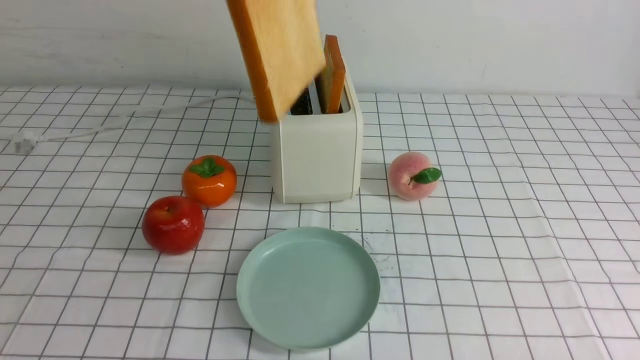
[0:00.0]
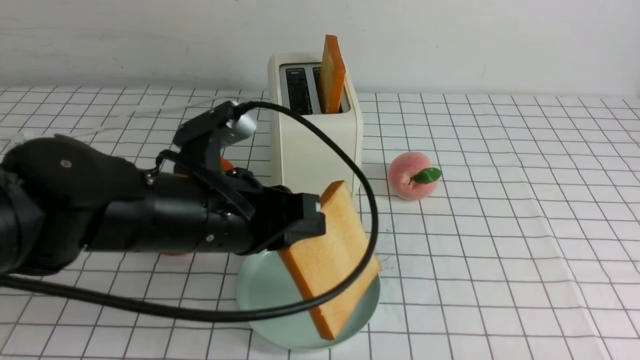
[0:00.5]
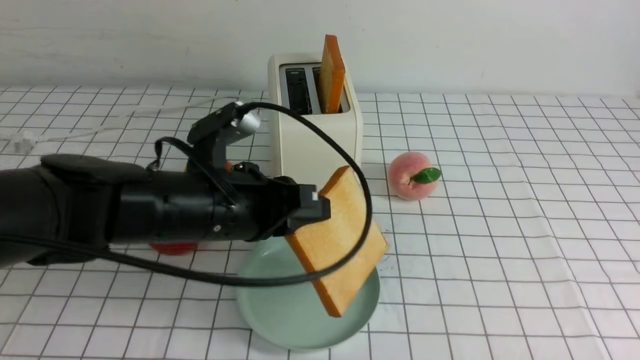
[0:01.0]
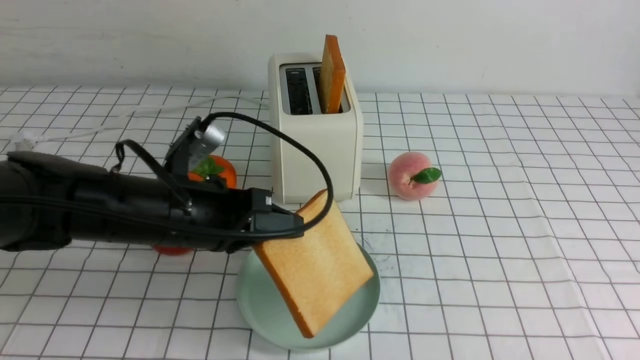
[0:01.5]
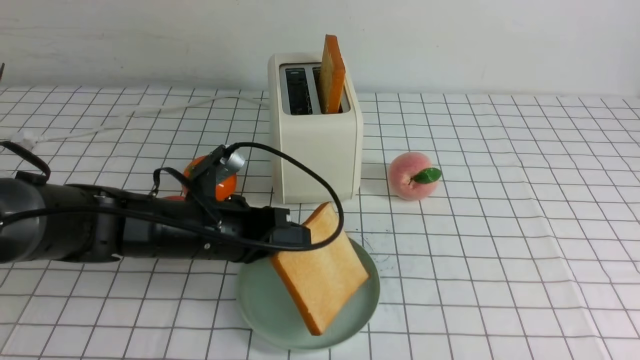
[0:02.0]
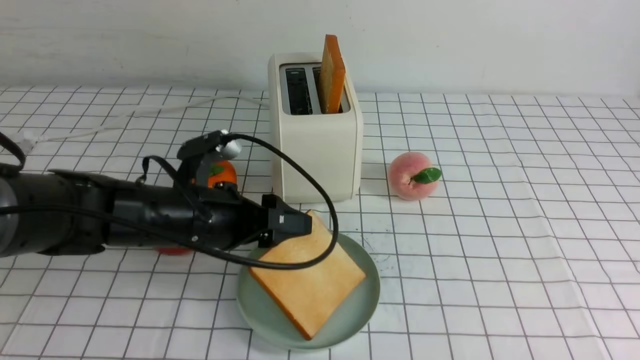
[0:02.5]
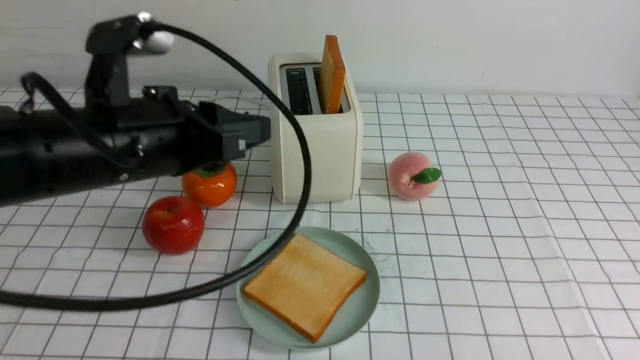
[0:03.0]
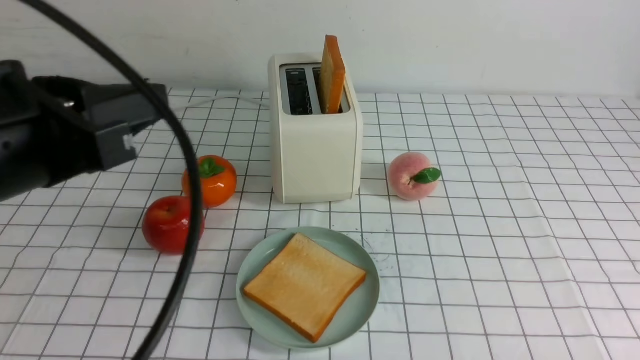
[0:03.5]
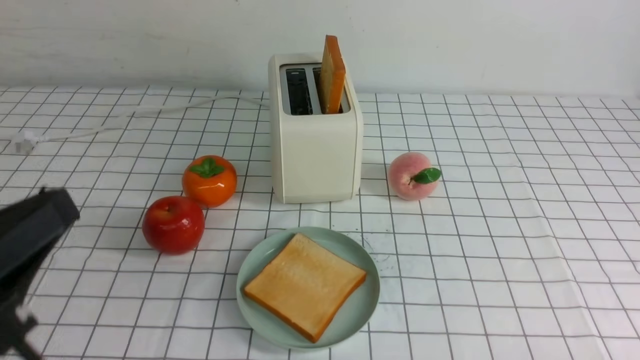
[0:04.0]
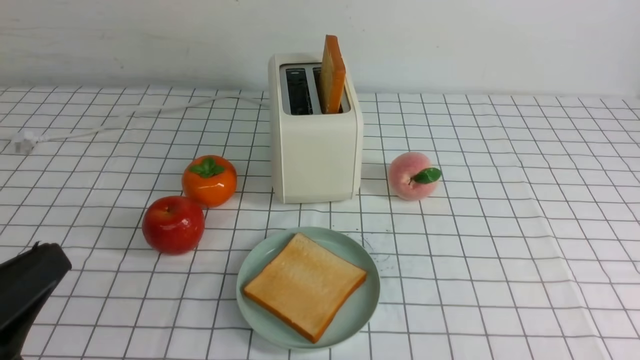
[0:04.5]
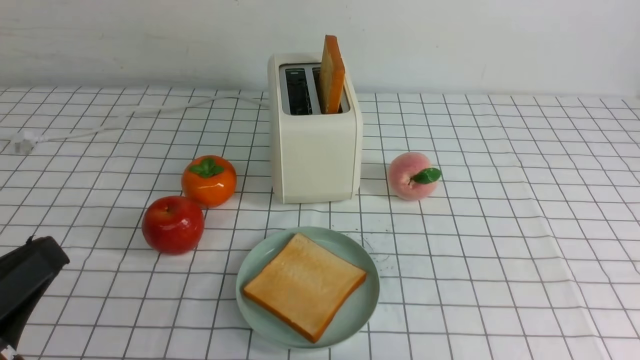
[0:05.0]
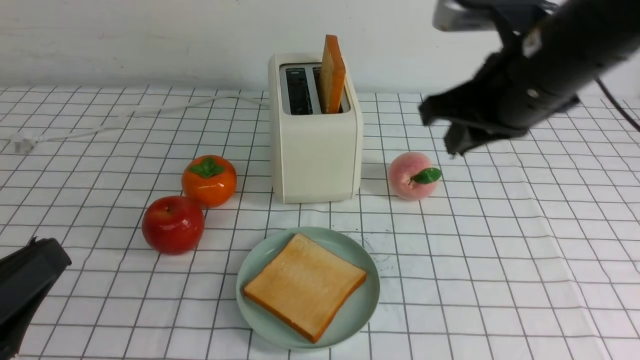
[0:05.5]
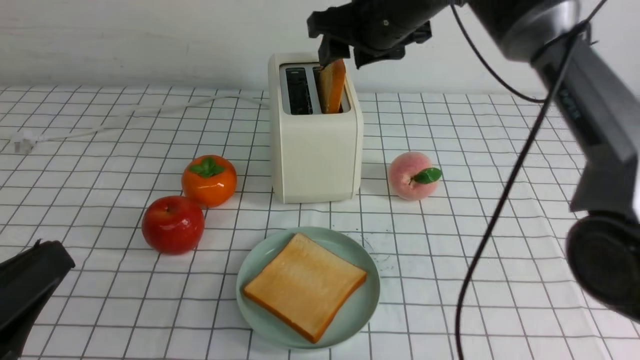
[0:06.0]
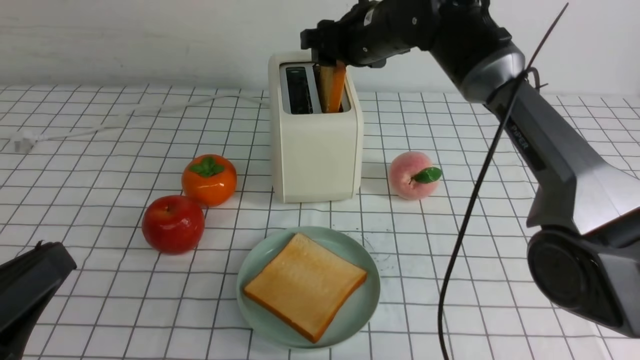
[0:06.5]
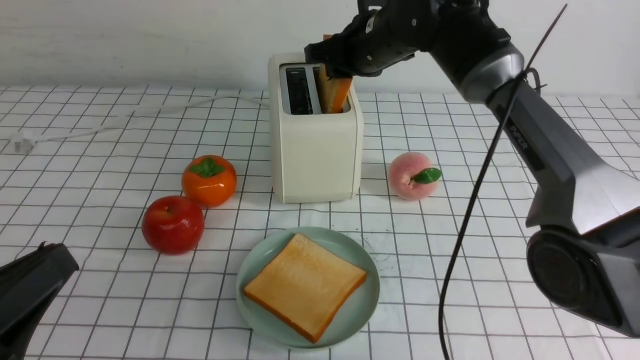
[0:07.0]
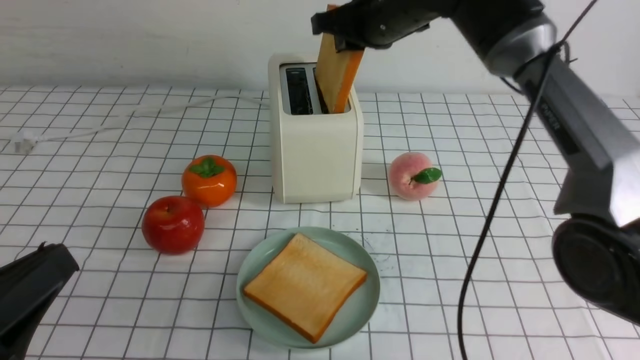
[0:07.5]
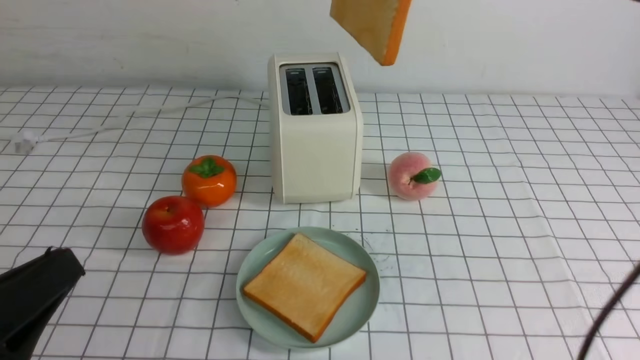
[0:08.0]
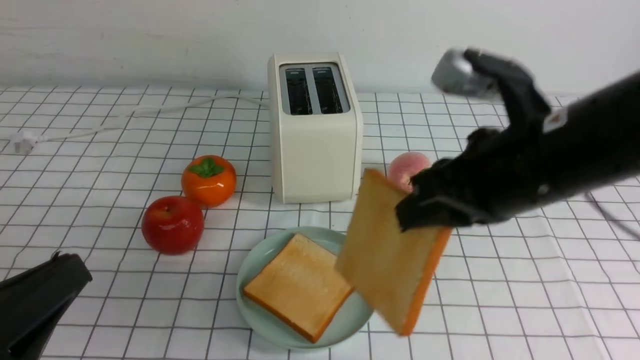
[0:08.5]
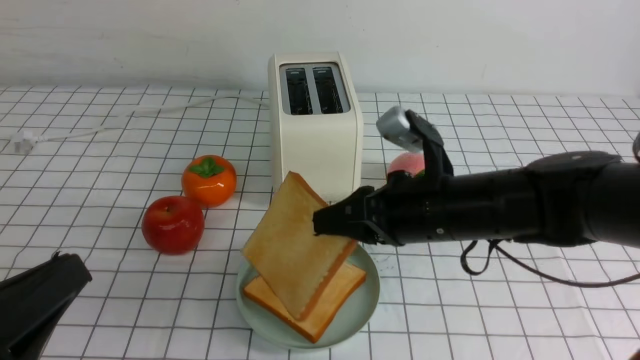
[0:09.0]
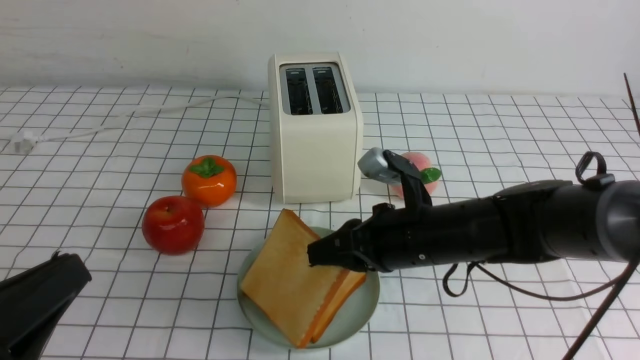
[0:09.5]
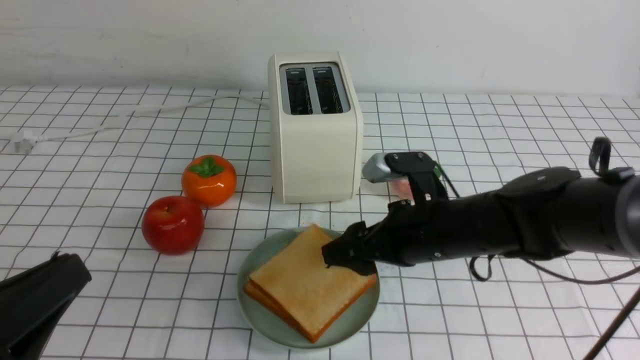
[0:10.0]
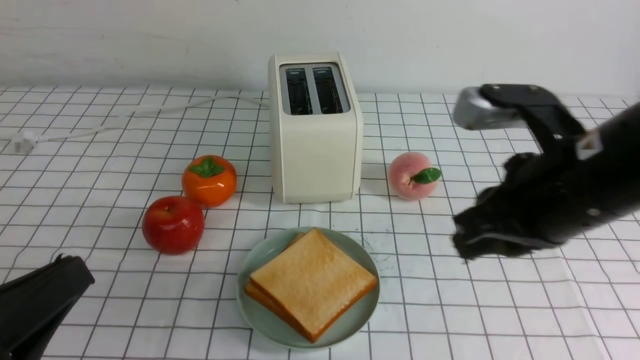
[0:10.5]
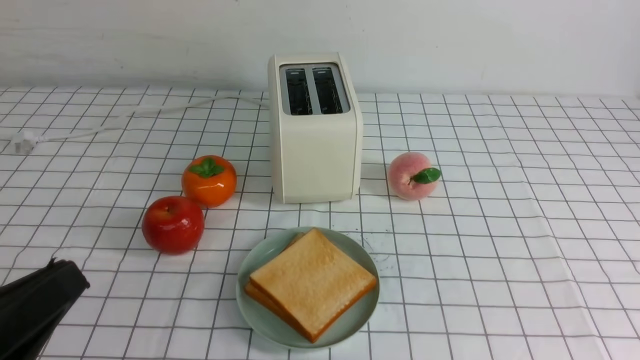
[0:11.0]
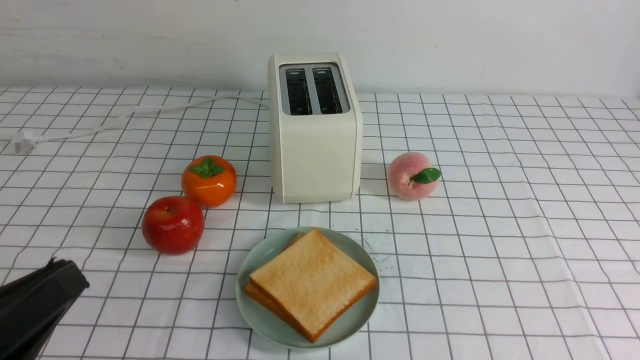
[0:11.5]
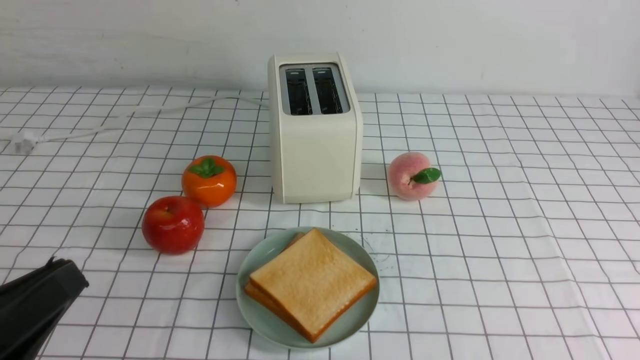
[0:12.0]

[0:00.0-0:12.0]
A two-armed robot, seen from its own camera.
Task of the whole recording: take toasted bread from bread machine on white checkered table place on plate.
Step, 0.0 to 2.5 s: use the left arm to put a slice of bread into the empty plate.
Step, 3.0 to 7.5 s: use the right arm to take out a slice of bread.
Step, 8.0 to 10.0 s: use the right arm to put a slice of bread into the plate.
0.0 to 2.0 s: The left gripper travels downward by some 30 cm.
2.0 to 4.0 s: The left gripper goes roughly 25 cm backward, upward and to the left, and closes its fingers.
4.0 to 6.0 s: The right gripper goes about 50 cm forward, to the left and upward, and opens its fingers.
6.0 to 8.0 s: The right gripper travels upward, backward and to the right by roughly 20 cm, and closes up.
8.0 to 10.0 s: The right gripper moves downward, about 25 cm, and opens up.
10.0 to 12.0 s: The right gripper moves backward and to the right, about 35 cm, and closes up.

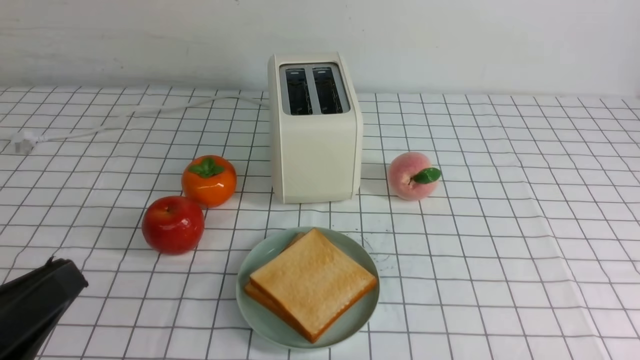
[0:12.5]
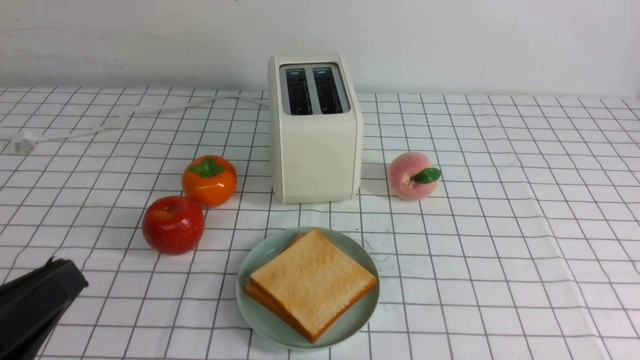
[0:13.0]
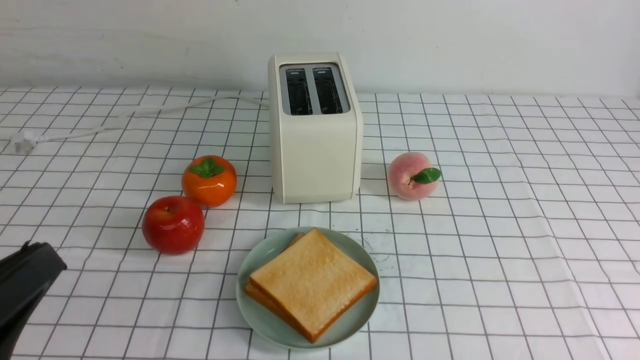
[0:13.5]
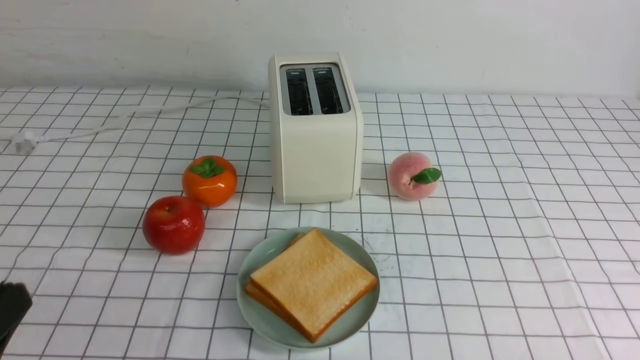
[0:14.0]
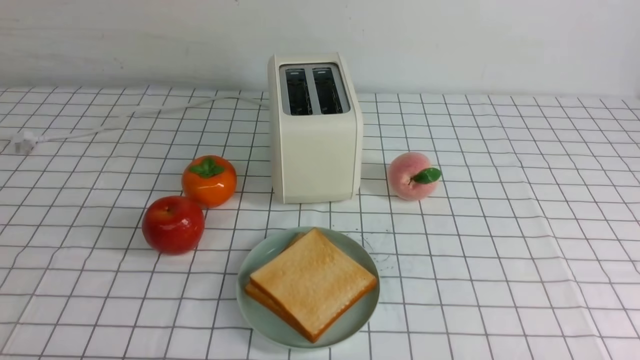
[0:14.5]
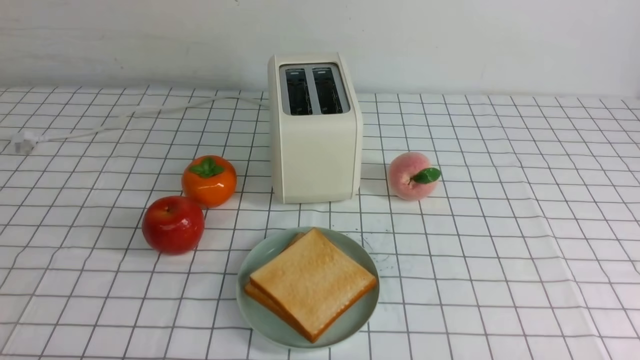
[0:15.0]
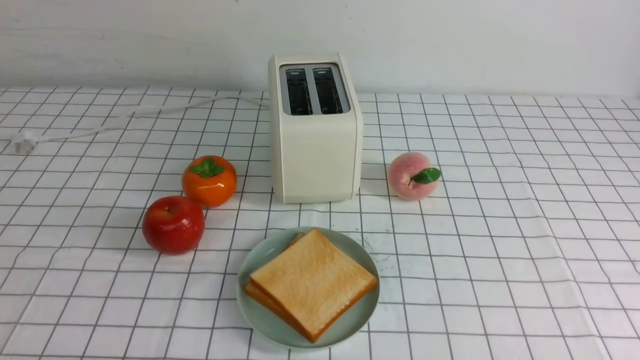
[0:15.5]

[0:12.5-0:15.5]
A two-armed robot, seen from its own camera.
Task of the whole recording: take toasted bread from bread machine on white checkered table place on plate.
12.5 to 14.0 s: The grippers make only small movements.
14.0 to 15.5 s: The left gripper is displaced downward by some 10 cm.

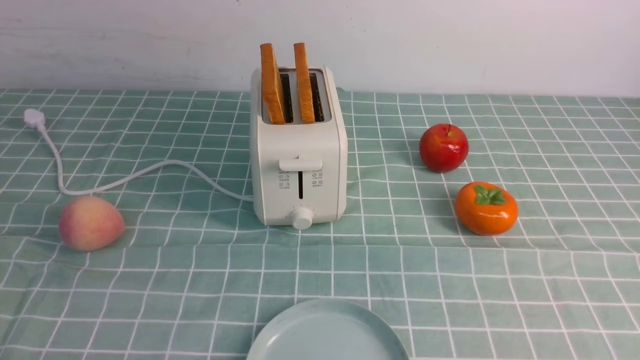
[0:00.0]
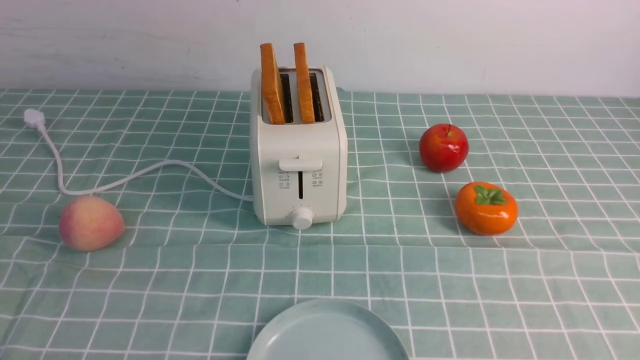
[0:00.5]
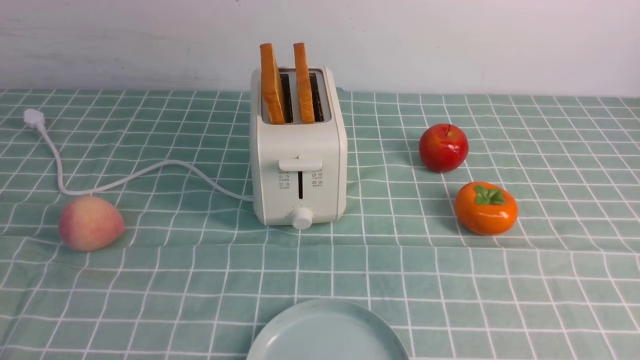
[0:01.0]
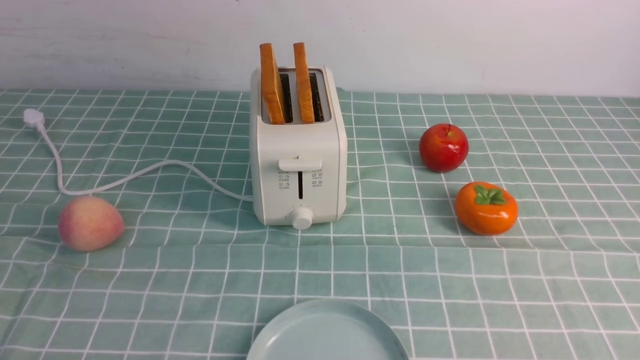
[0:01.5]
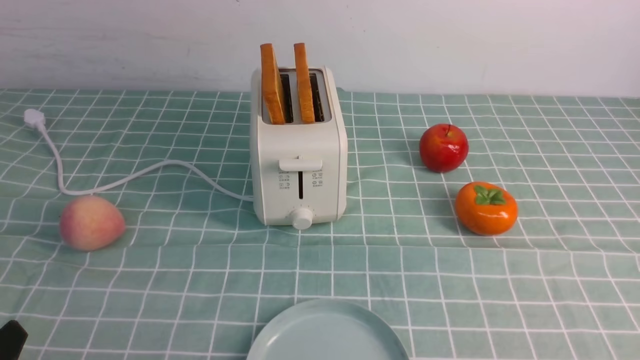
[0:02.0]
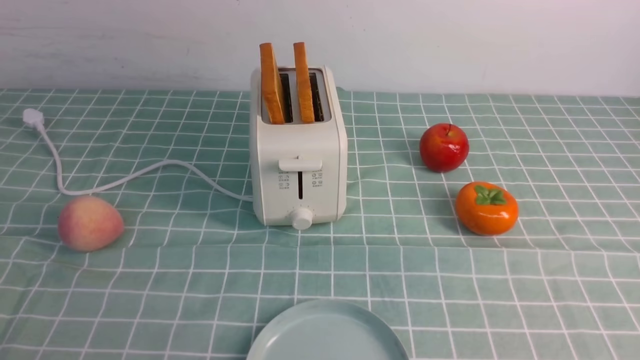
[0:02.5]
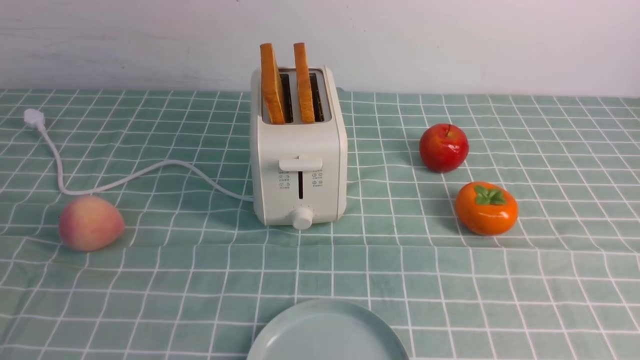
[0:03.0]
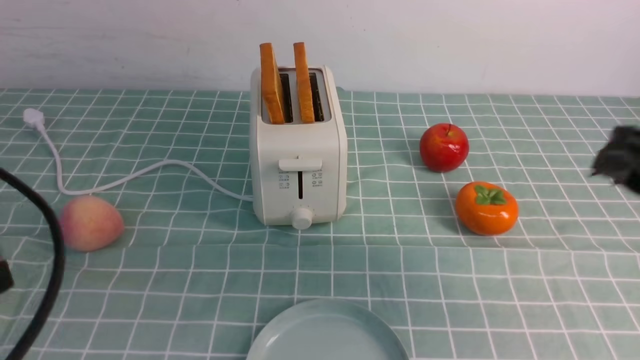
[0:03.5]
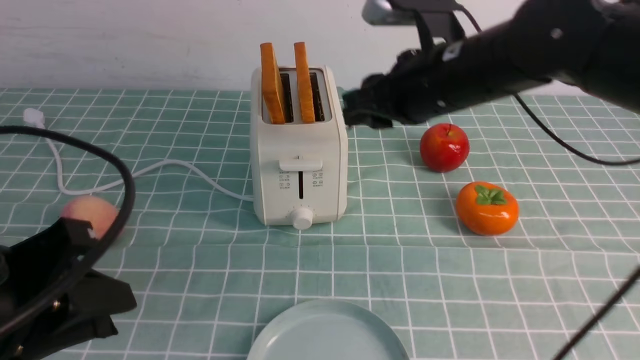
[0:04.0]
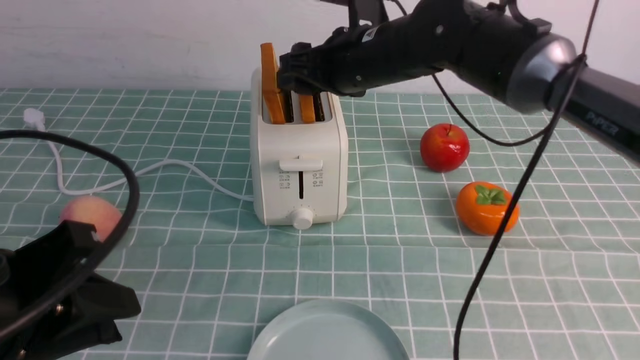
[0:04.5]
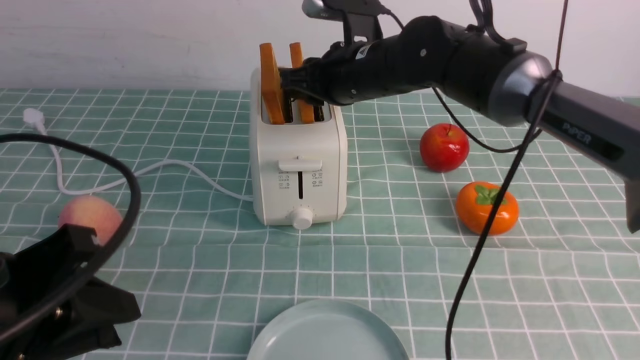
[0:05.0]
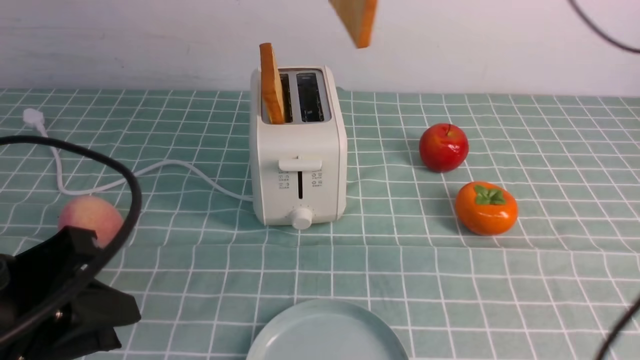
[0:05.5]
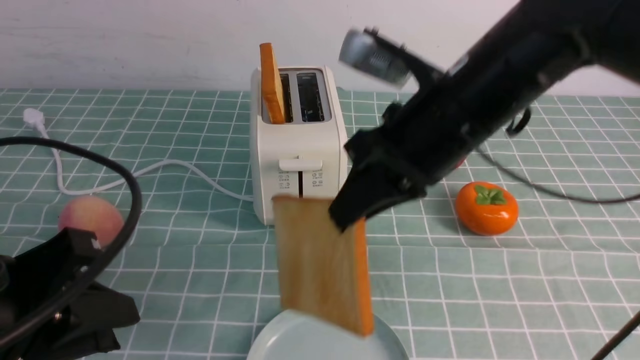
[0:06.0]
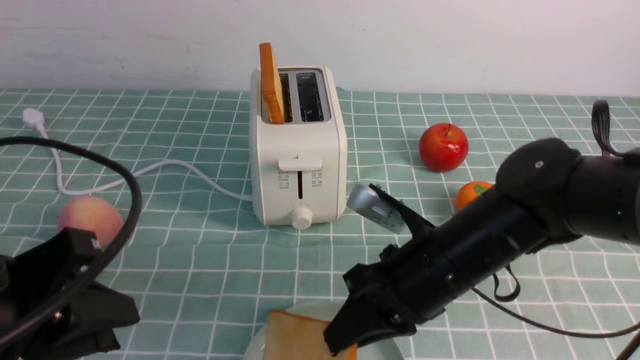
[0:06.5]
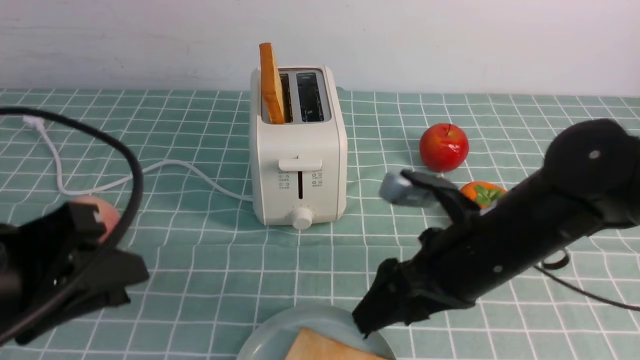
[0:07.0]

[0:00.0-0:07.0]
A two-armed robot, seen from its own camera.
Task of the whole recording: take toasted bread from bread machine on blue coffee table place on plate.
Step, 0.0 to 5.0 s: use the right arm to take out a slice of bread.
2.0 to 3.5 s: The left gripper goes some 15 cm upward and forward. The right gripper shifts approximately 25 cm forward and upward.
3.5 to 5.0 s: The right gripper travels to the left and forward by roughly 30 cm, and opens, then closes again.
5.0 to 7.0 s: The right gripper moves backward and to the right, approximately 20 cm, goes upward and returns, about 10 cm each way, and opens.
